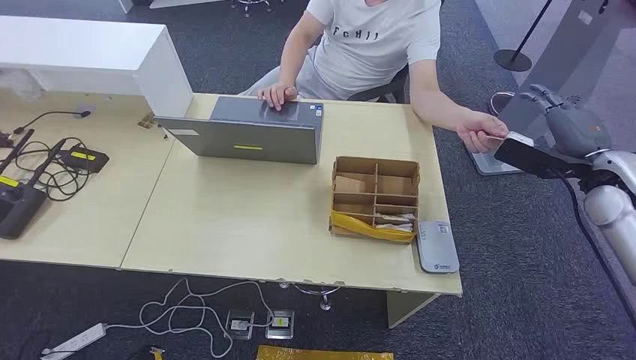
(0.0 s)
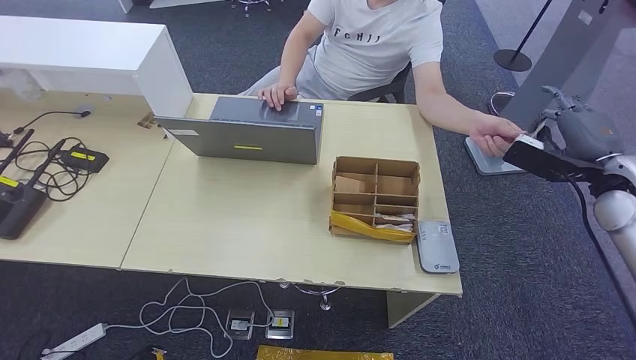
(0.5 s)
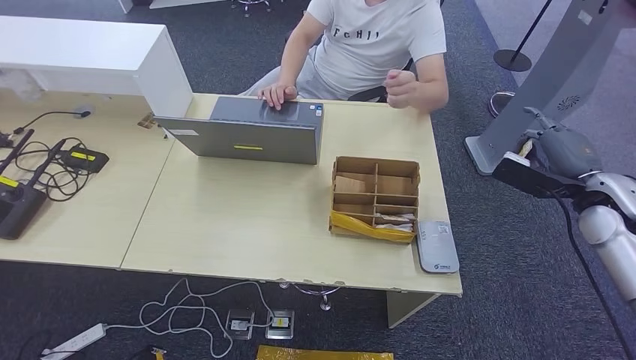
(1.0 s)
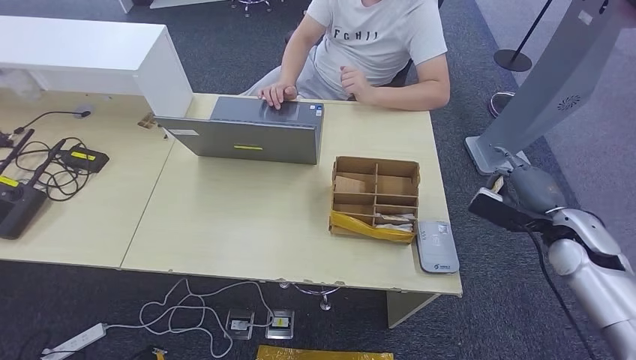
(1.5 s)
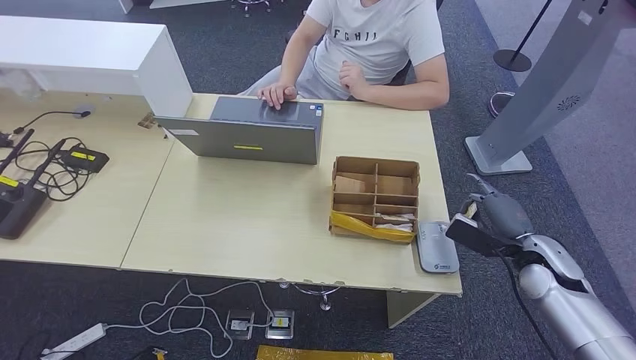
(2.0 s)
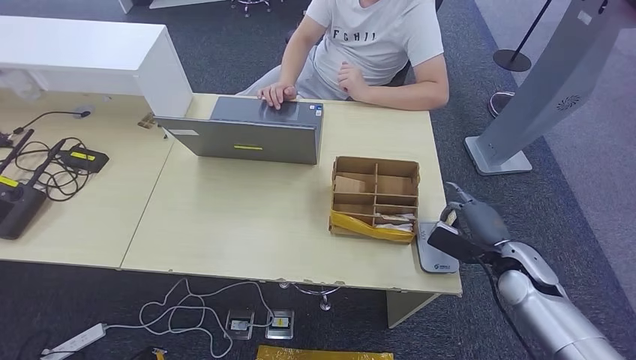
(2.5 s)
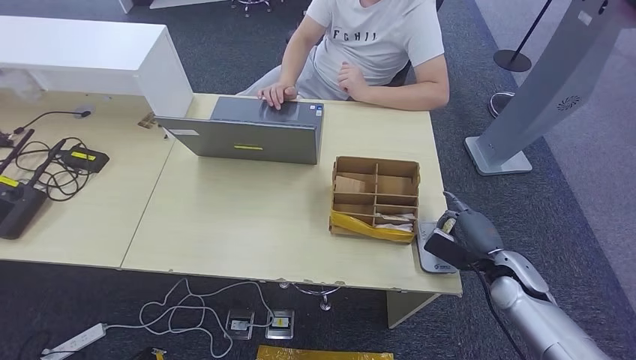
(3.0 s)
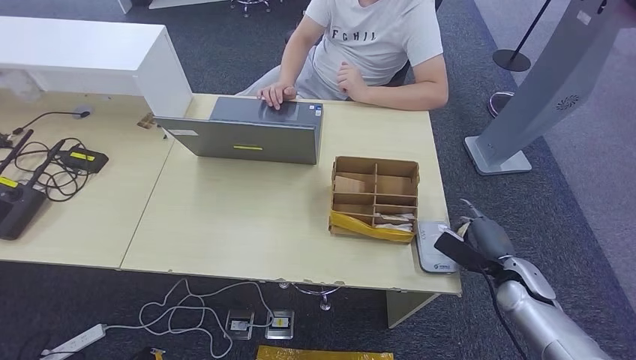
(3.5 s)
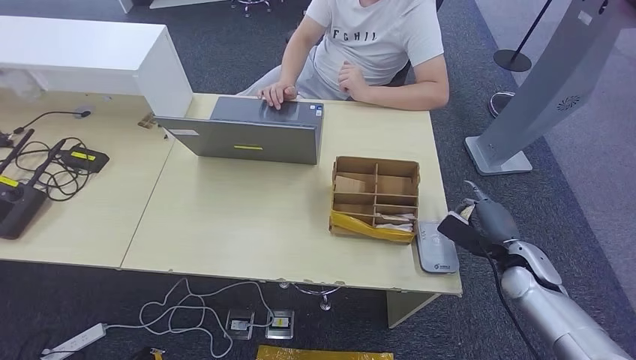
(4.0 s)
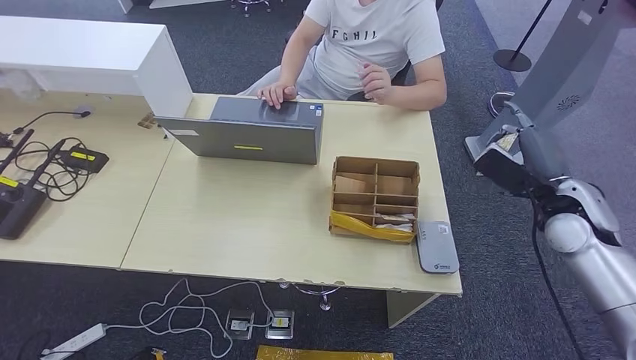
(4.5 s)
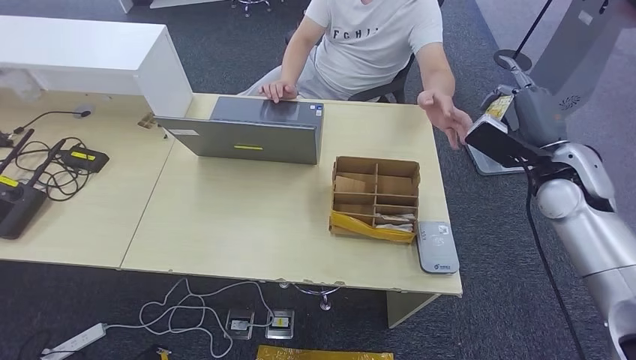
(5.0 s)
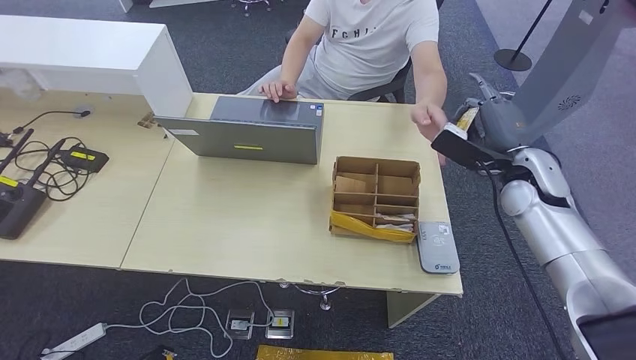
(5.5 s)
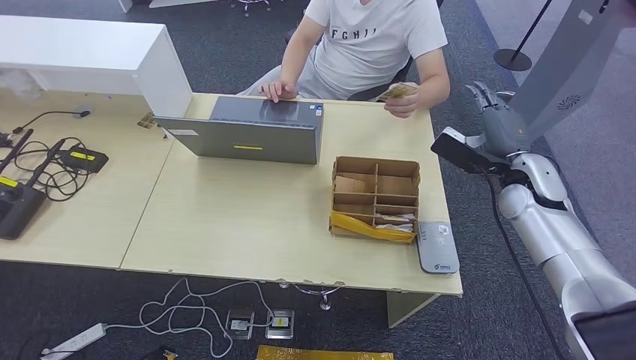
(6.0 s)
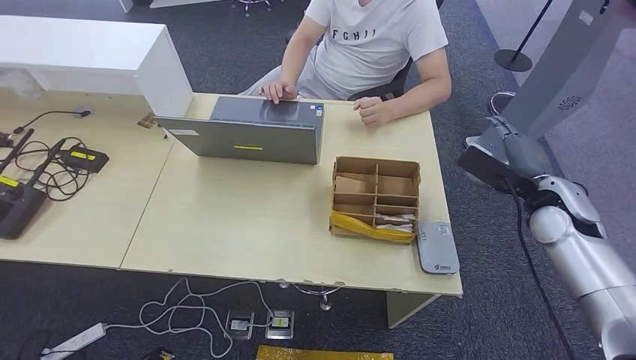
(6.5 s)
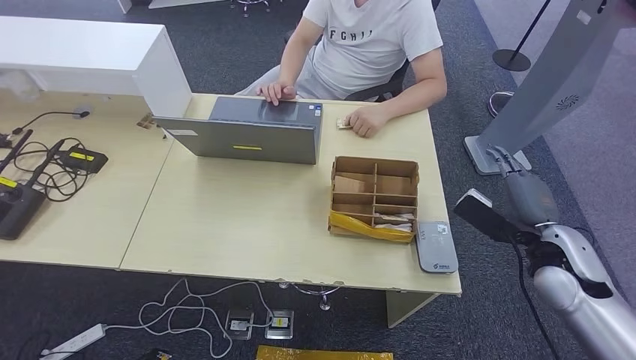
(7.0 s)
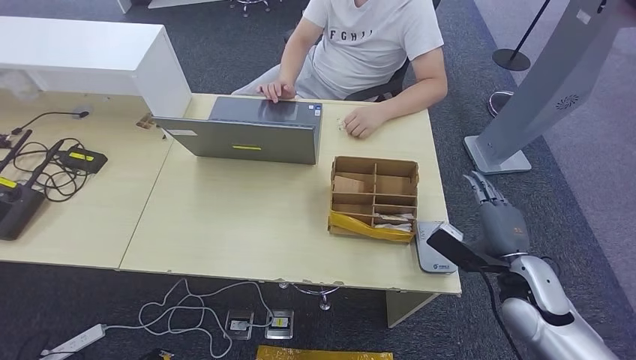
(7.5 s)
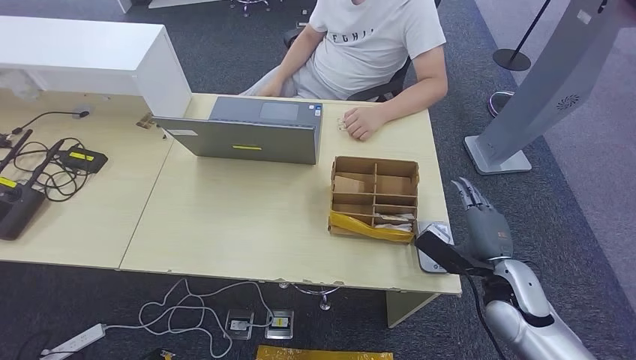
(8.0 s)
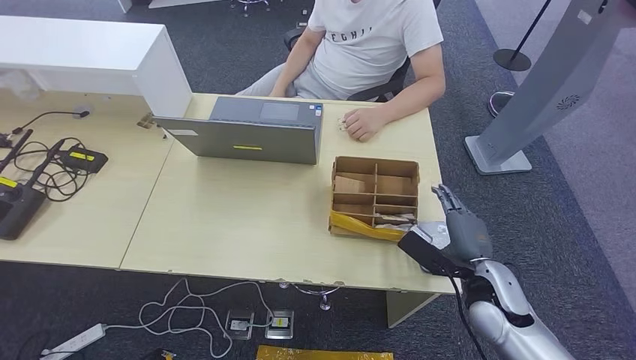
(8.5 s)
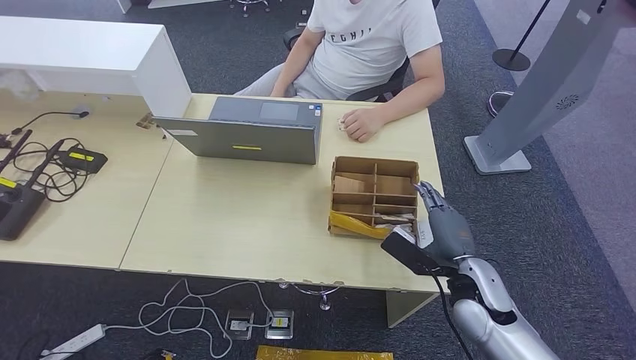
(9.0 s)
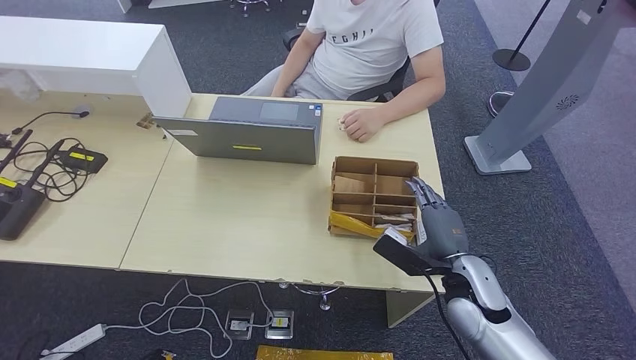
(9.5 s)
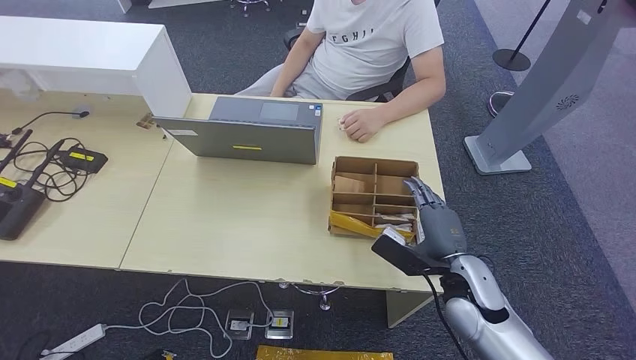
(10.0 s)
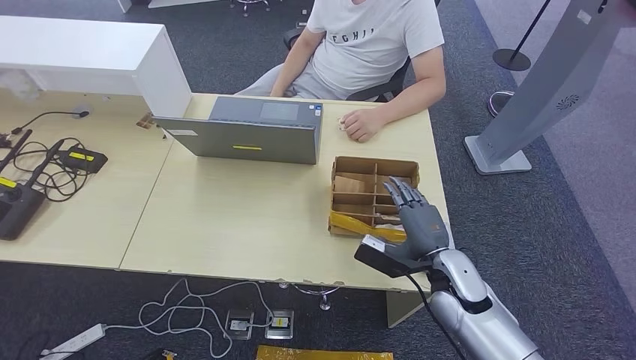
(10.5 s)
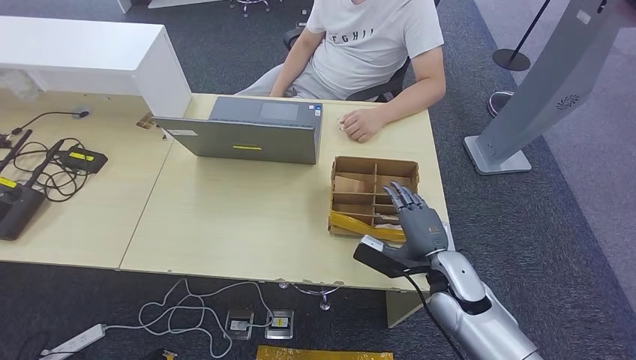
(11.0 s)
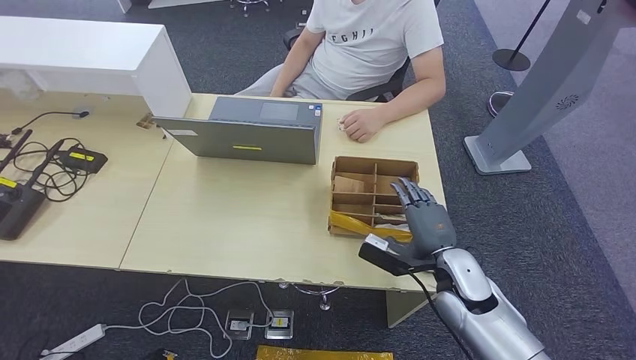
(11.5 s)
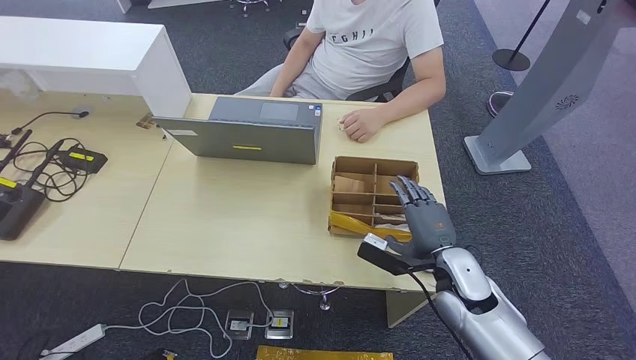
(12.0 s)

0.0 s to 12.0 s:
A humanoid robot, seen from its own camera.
Step, 0.0 to 0.5 s: Take the ID card from the person's hand.
Step, 1.5 to 3.0 s: Place the ID card on the card reader.
Step, 3.5 to 5.5 s: Hand the ID card to the person.
4.0 to 6.0 s: The right hand moves upward and forward, roughly 15 cm.
6.0 to 8.0 s: The right hand heads backward and downward, covering about 15 cm.
8.0 to 10.0 s: The right hand shifts approximately 5 cm to the left.
10.0 to 12.0 s: The hands move only a little.

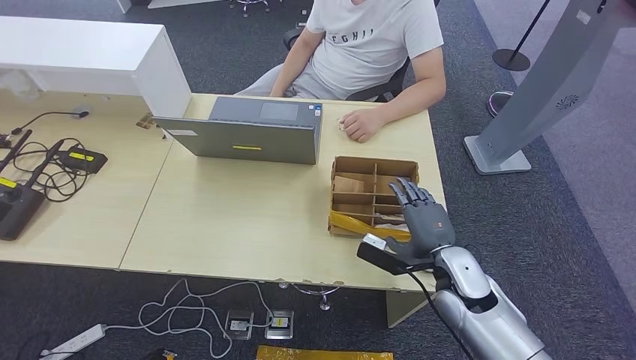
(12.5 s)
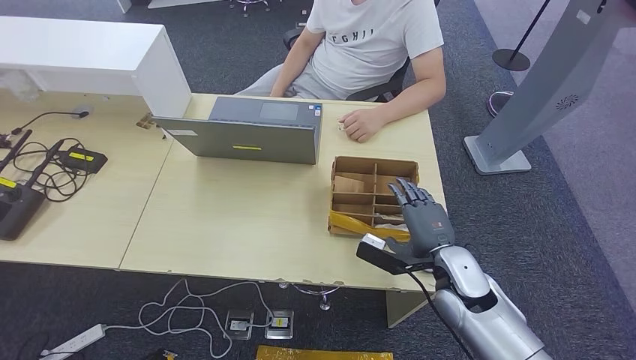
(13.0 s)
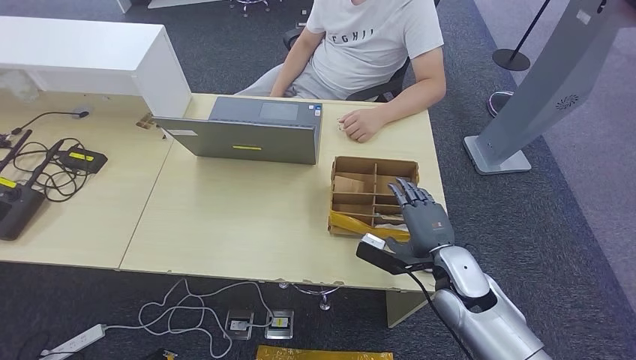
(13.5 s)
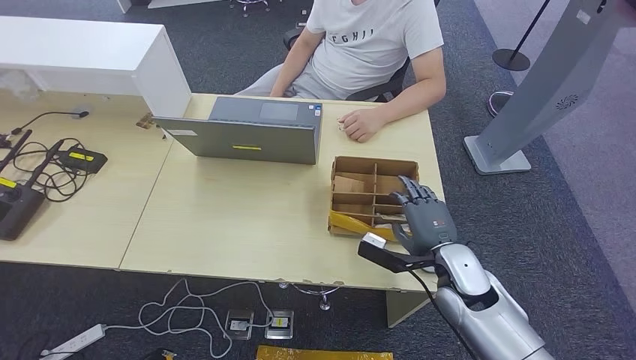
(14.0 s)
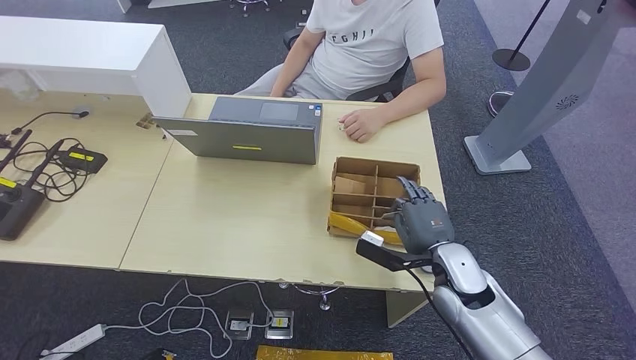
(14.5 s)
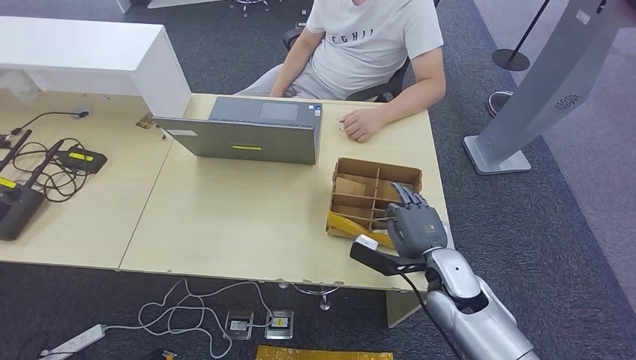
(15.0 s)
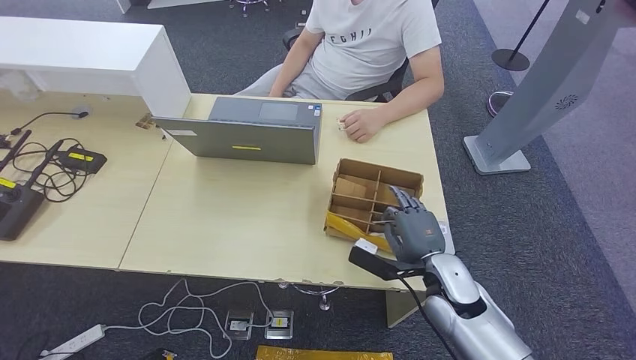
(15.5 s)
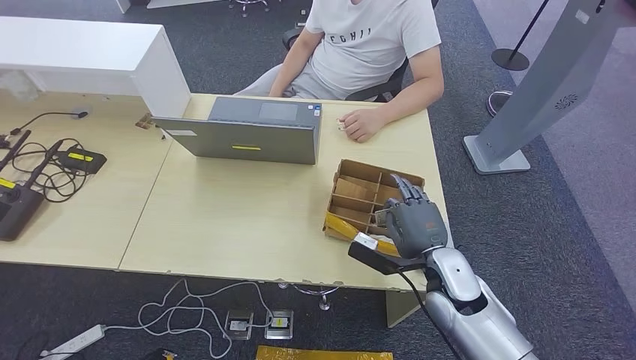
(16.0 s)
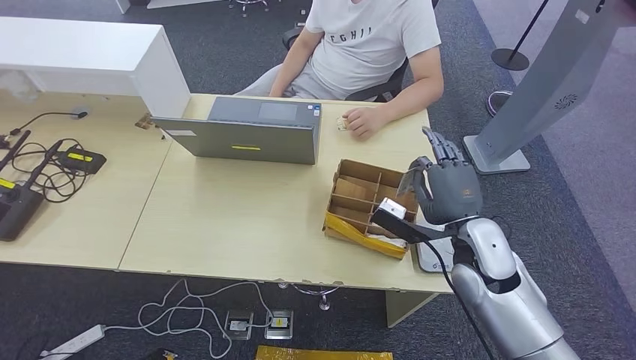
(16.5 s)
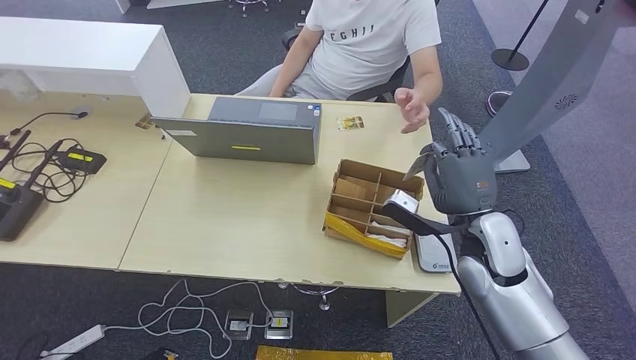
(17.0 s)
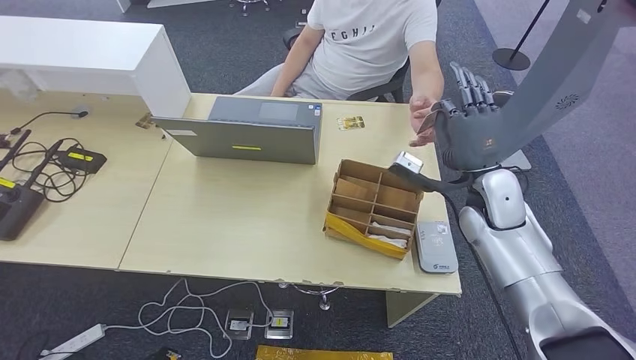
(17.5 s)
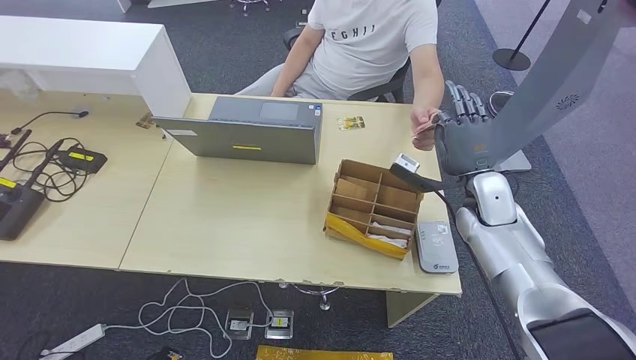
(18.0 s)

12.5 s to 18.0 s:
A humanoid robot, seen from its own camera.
Step, 12.5 to 16.0 s: Pick up the room key from the key card box.
Step, 16.5 to 18.0 s: Hand the room key to the person.
12.5 to 14.5 s: Both hands stay put.
14.5 to 16.0 s: The hands make only small movements.
16.0 to 18.0 s: The right hand shifts some 15 cm forward, upward and to the right.

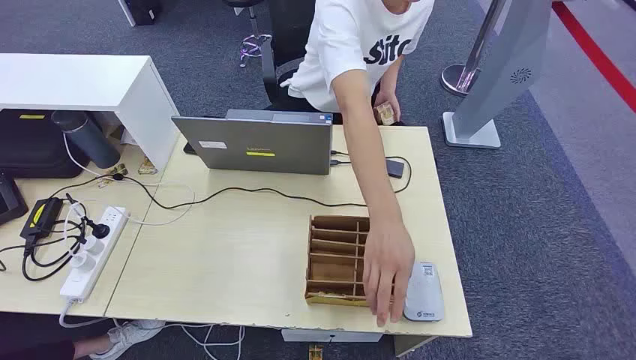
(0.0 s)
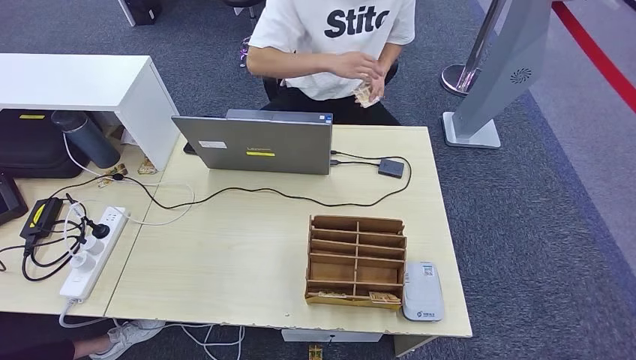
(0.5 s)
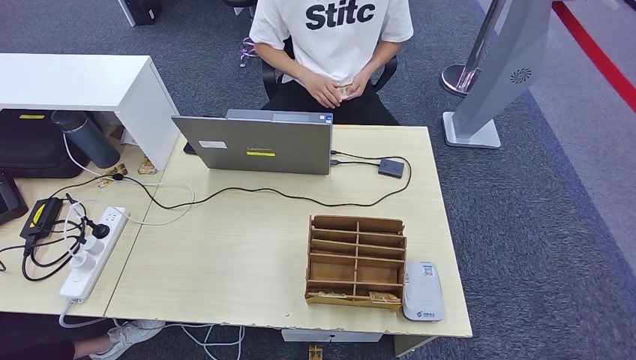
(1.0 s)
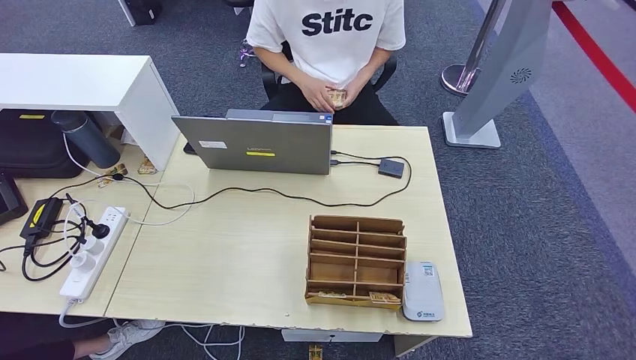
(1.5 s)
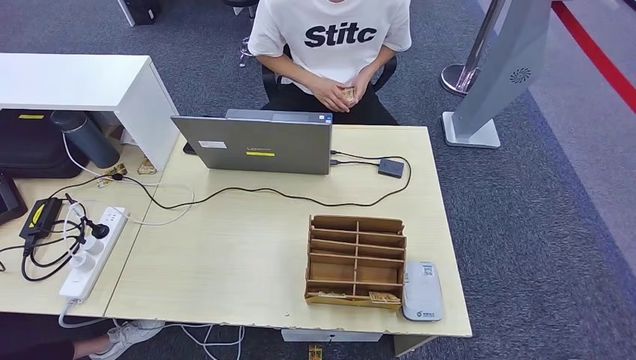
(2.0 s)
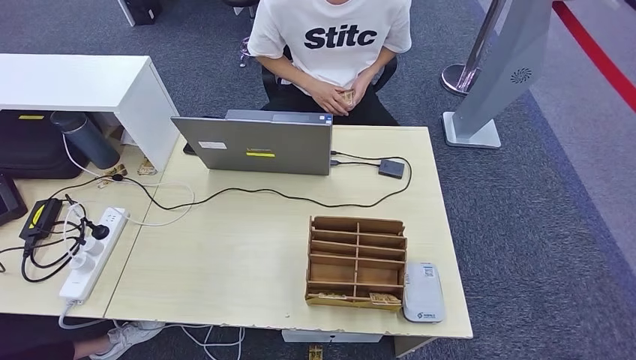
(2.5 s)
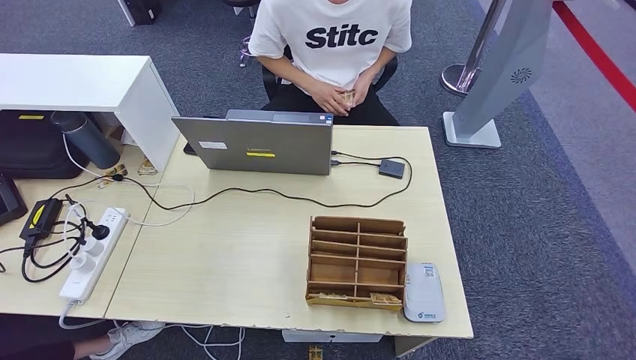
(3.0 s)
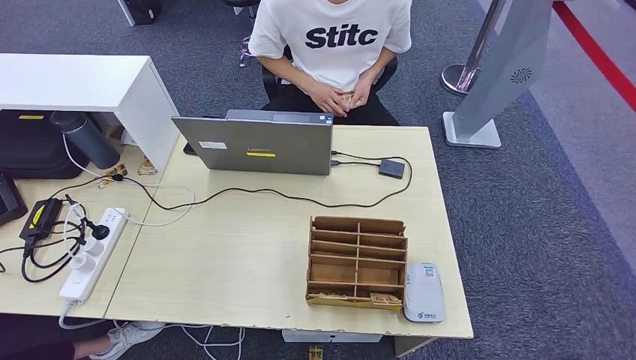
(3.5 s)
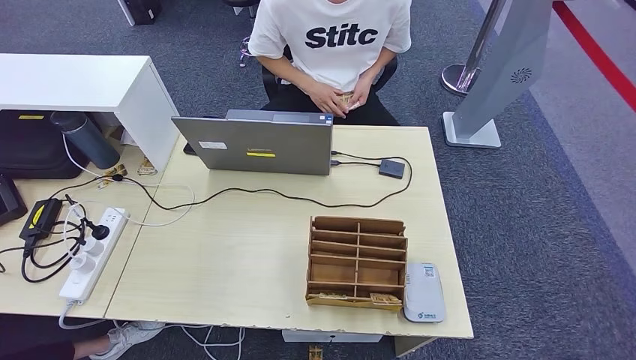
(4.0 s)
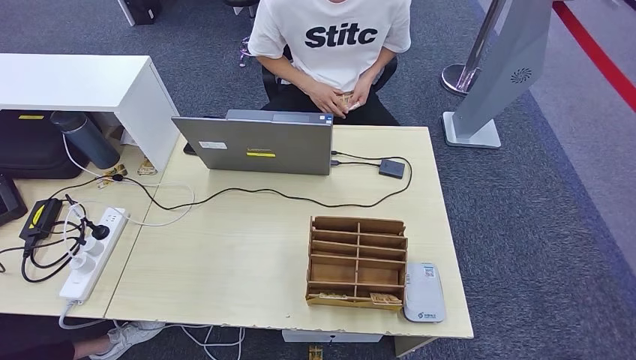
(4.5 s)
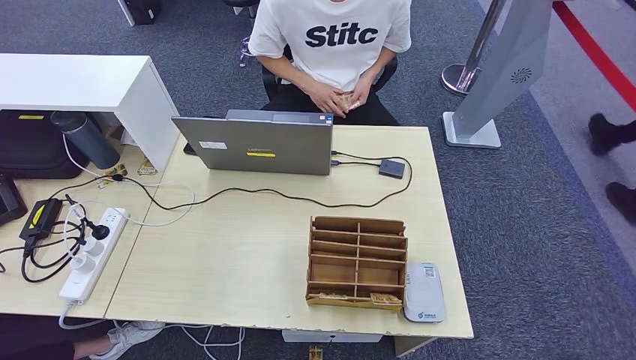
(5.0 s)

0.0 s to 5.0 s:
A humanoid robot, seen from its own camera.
2.5 to 5.0 s: The right hand is displaced to the left by some 5 cm.
